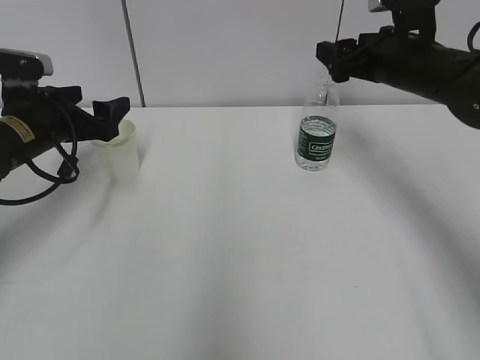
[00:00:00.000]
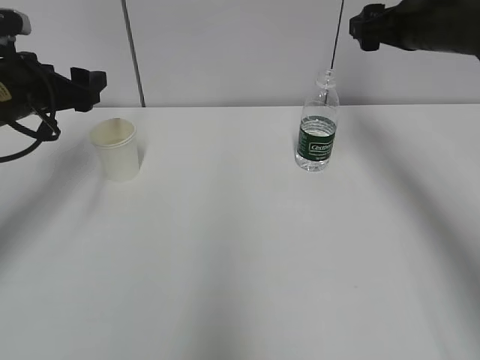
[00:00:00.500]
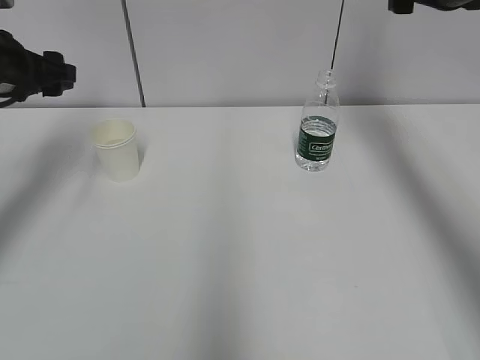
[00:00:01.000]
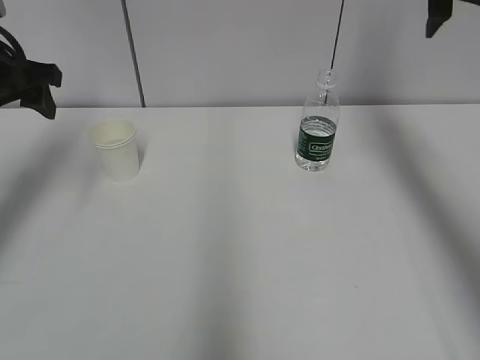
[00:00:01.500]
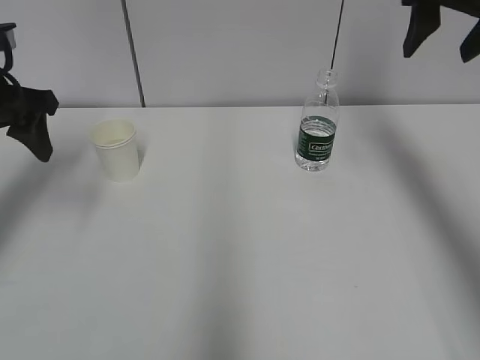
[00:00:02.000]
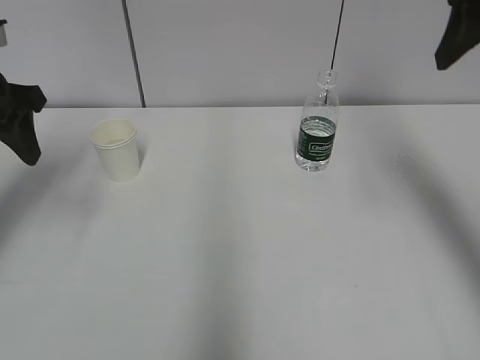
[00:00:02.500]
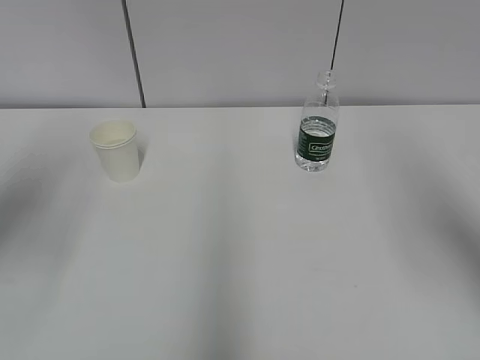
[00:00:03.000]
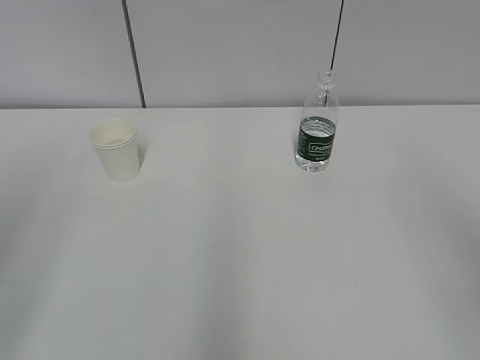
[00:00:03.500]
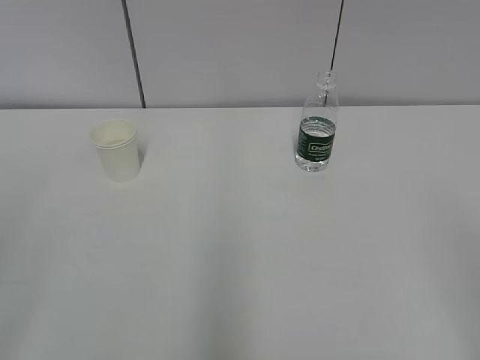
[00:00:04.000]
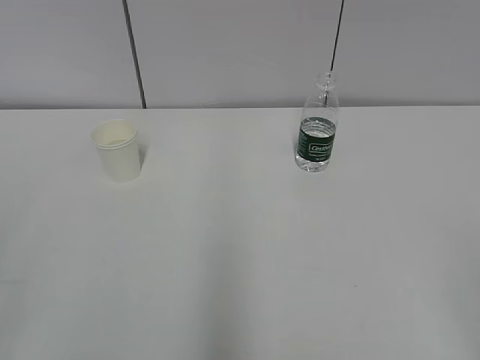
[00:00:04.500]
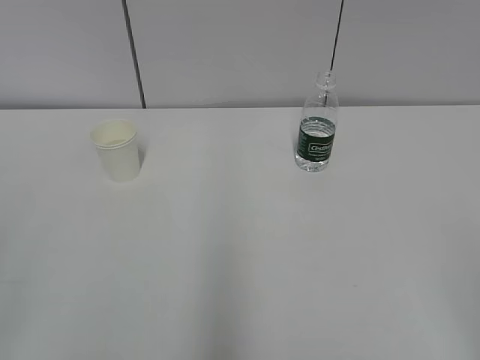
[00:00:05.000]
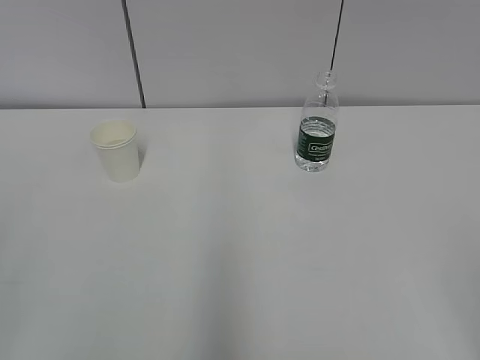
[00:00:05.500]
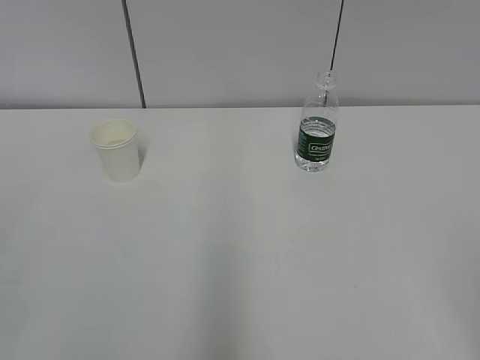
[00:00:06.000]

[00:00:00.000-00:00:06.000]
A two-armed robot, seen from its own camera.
00:00:00.000 to 00:00:02.000: The grippers both shift upward by about 10 cm. The left gripper closes.
00:00:02.000 to 00:00:04.000: Both grippers move backward, some 35 cm.
